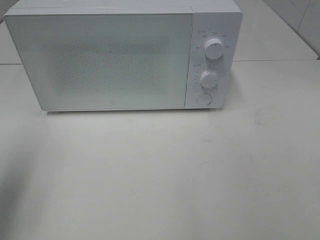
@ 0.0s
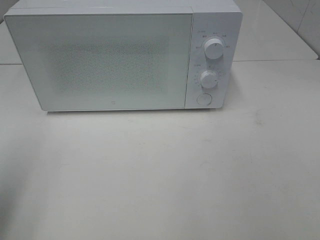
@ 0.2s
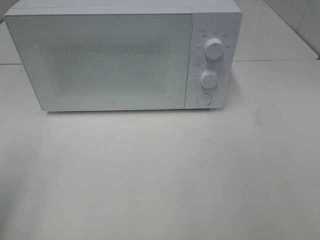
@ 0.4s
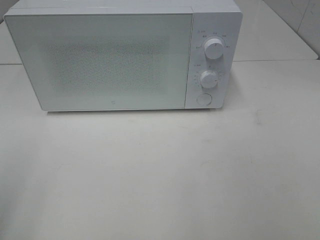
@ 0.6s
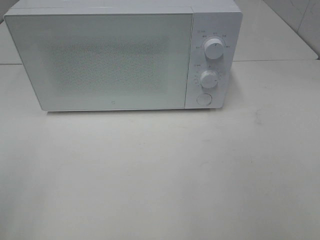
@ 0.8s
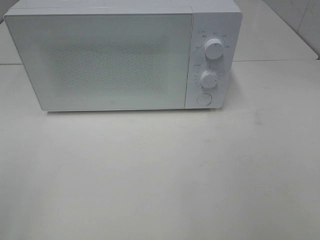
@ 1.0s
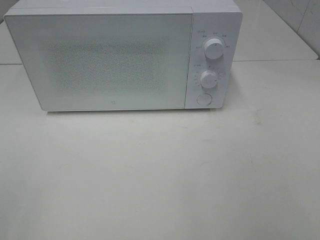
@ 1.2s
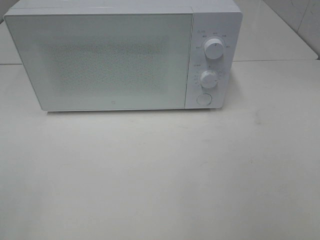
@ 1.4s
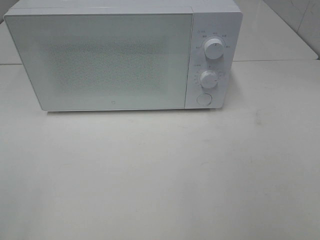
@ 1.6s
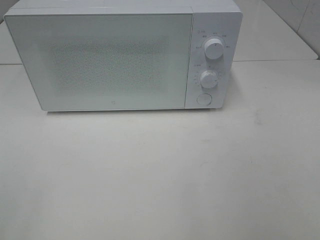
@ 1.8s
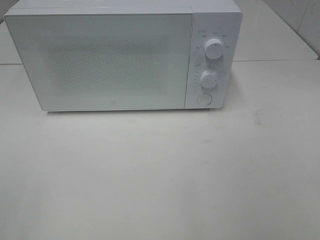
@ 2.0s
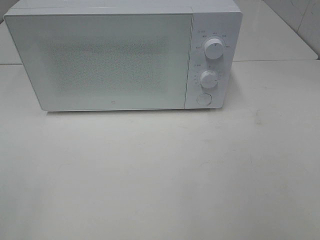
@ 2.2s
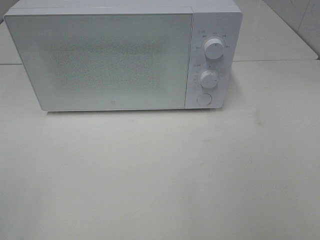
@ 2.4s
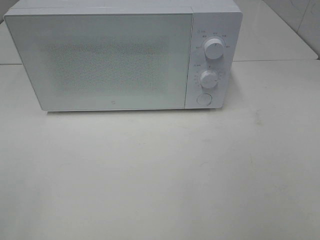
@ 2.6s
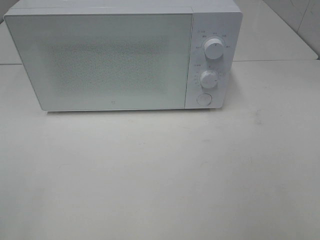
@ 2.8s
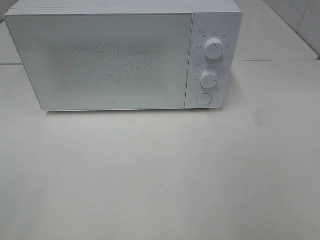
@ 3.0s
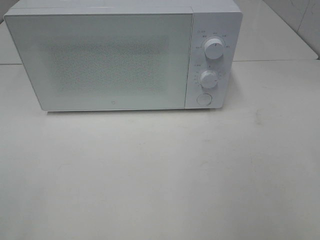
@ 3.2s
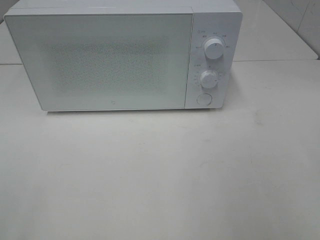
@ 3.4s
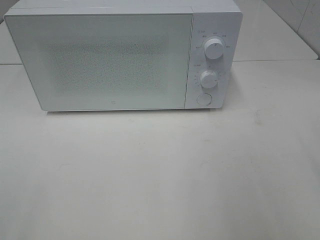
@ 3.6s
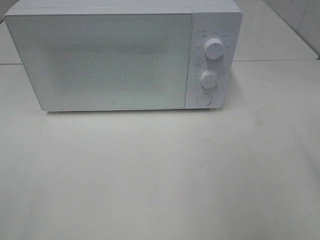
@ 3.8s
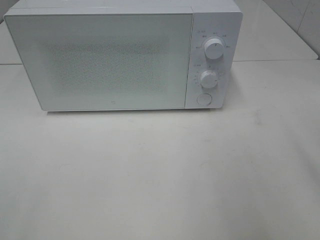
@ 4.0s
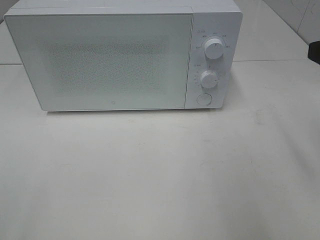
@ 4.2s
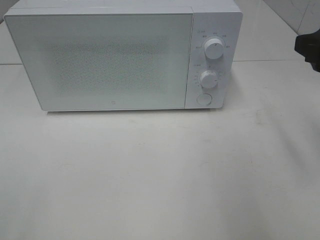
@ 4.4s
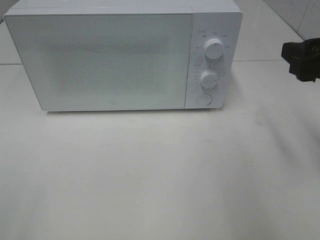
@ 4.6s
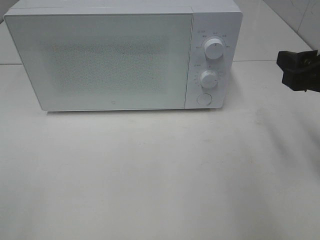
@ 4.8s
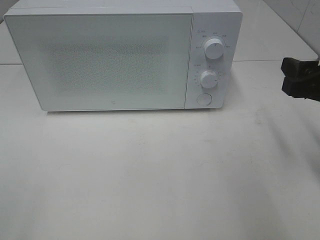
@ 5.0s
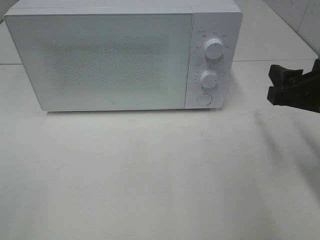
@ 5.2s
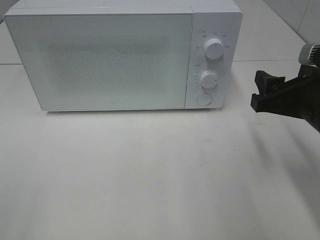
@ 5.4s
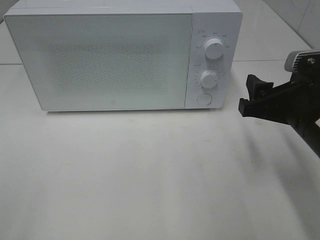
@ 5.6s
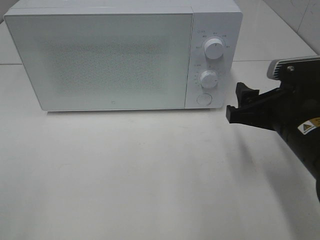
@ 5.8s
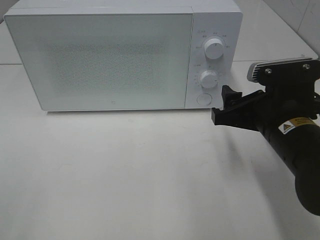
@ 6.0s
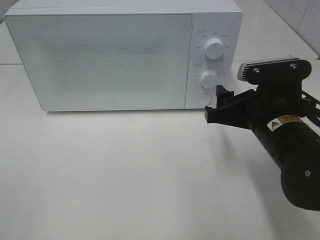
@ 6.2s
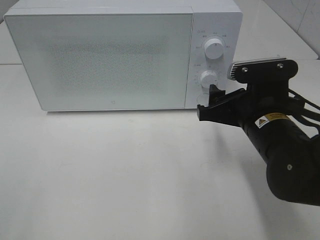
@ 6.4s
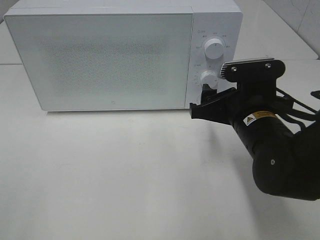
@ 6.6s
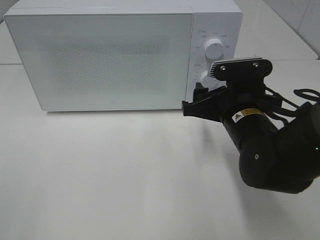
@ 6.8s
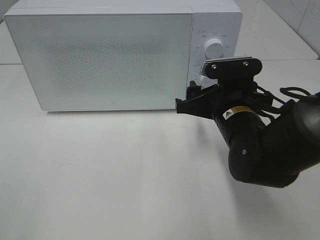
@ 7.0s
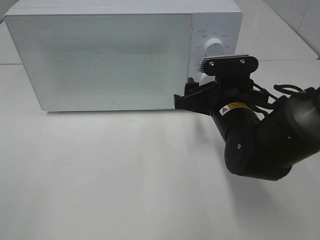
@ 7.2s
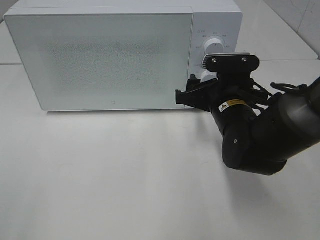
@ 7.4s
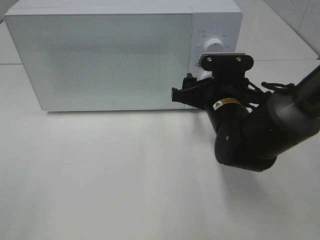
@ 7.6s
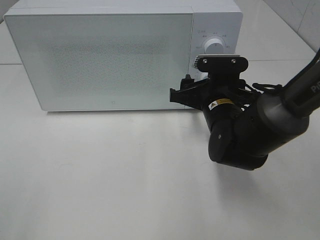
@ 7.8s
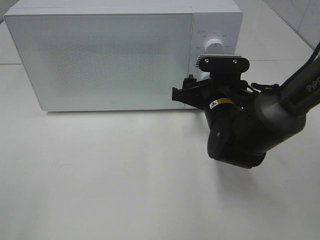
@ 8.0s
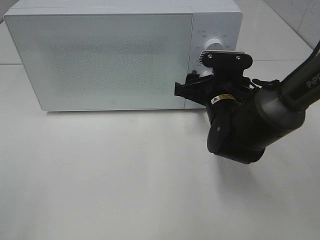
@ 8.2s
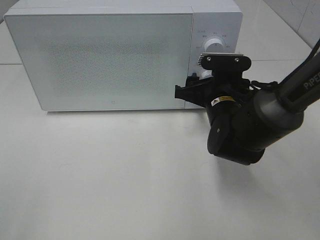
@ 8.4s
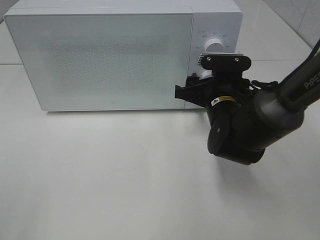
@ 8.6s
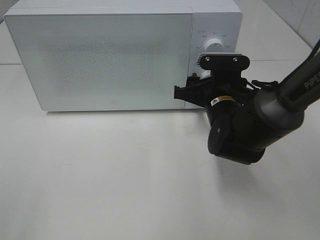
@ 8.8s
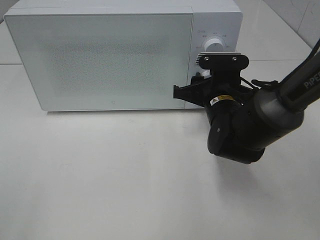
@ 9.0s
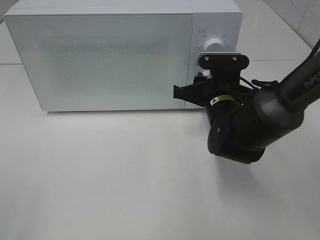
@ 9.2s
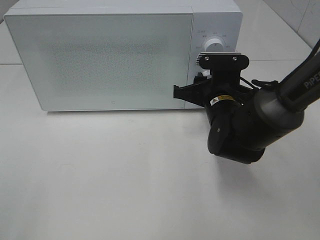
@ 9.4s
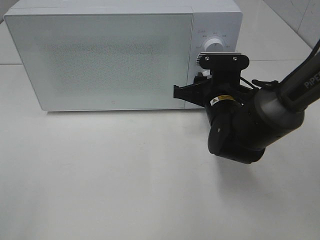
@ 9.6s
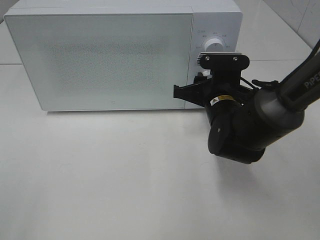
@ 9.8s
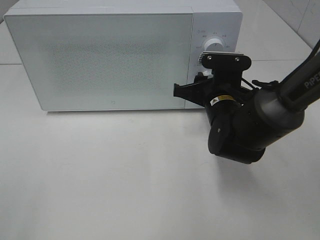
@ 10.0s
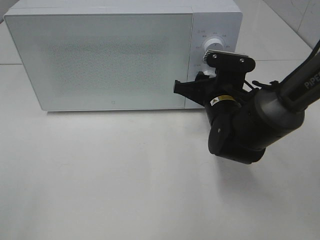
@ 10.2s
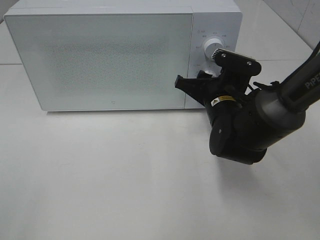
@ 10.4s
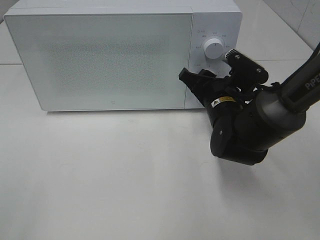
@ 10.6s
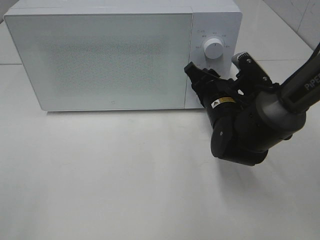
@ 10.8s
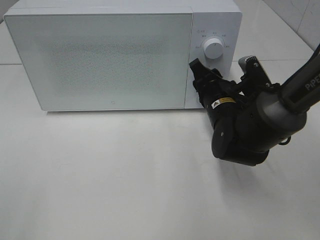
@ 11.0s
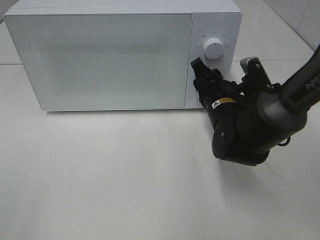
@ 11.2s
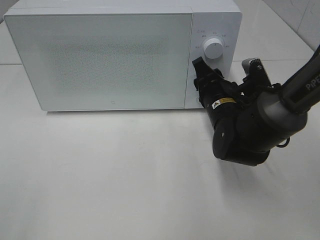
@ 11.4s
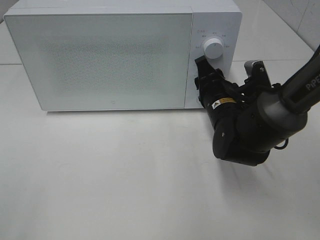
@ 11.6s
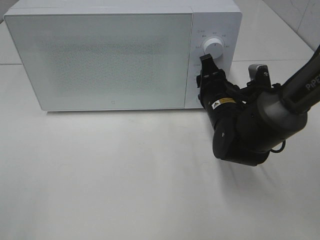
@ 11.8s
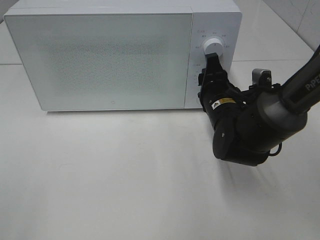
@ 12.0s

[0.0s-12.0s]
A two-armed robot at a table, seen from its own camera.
Task of the whole recording: Heat the burger.
0.0s to 1.6s: The left gripper heads backward, covering approximately 20 cm.
3.0s to 4.4s: The right gripper shifts approximately 15 cm forward.
4.4s to 6.0s: The right gripper heads downward and to the left, covering approximately 15 cm.
6.0s to 7.6s: The right gripper travels forward and to the left by approximately 10 cm.
7.6s to 10.4s: The grippers make only small movements.

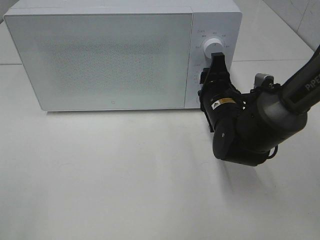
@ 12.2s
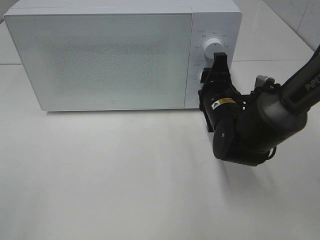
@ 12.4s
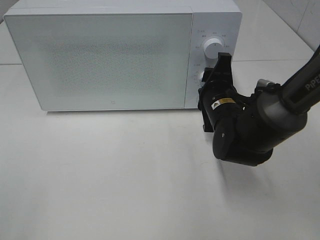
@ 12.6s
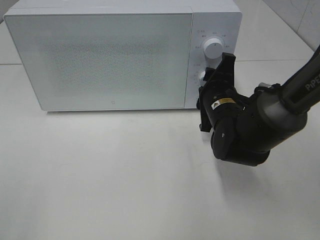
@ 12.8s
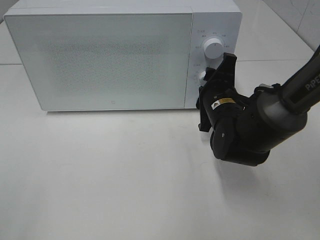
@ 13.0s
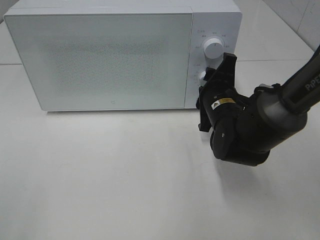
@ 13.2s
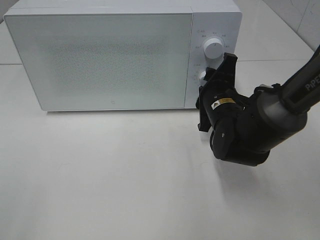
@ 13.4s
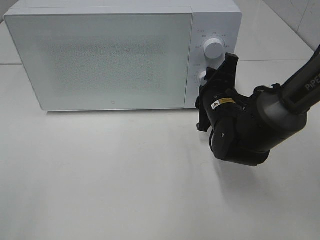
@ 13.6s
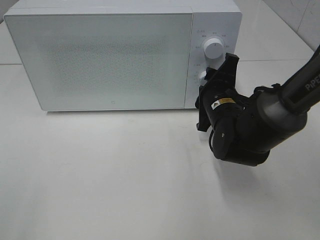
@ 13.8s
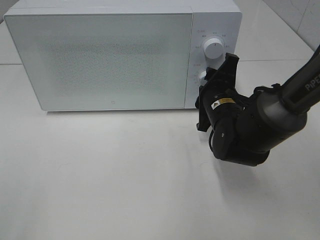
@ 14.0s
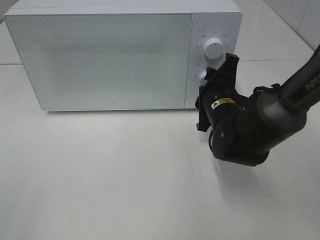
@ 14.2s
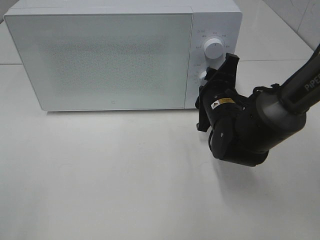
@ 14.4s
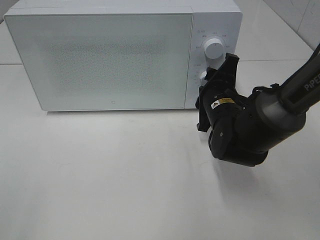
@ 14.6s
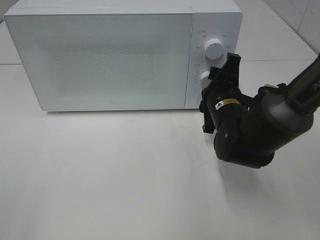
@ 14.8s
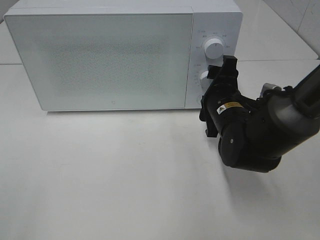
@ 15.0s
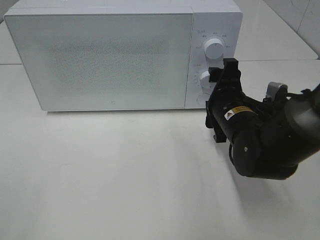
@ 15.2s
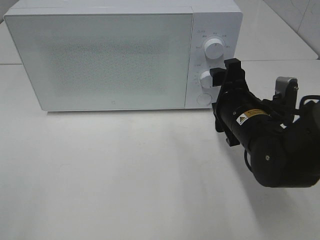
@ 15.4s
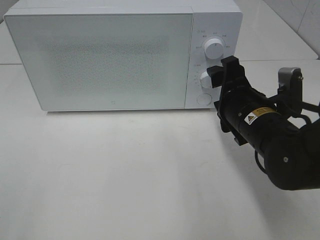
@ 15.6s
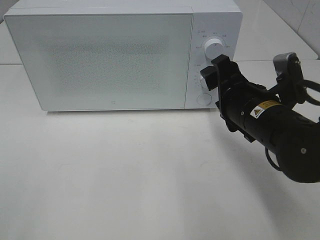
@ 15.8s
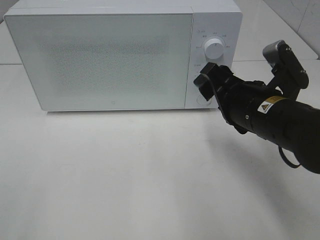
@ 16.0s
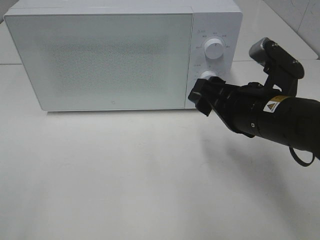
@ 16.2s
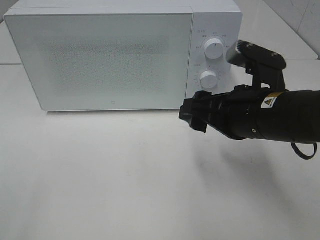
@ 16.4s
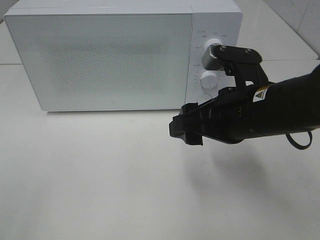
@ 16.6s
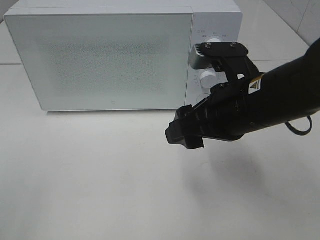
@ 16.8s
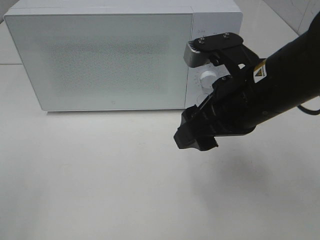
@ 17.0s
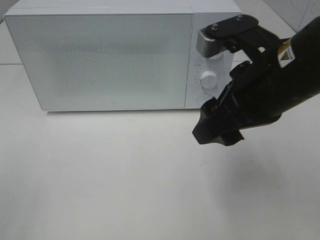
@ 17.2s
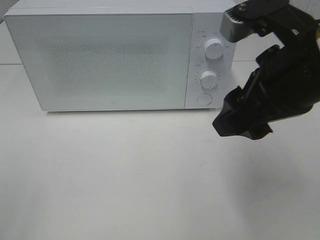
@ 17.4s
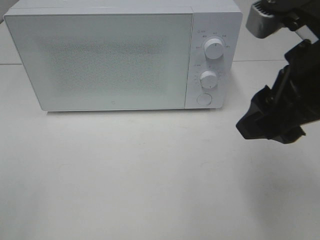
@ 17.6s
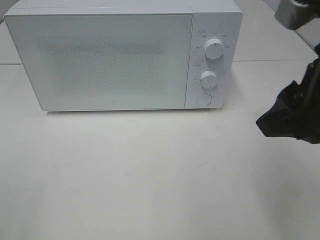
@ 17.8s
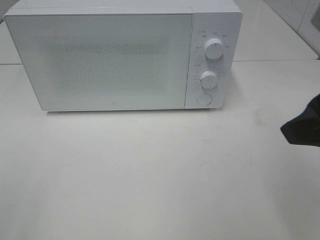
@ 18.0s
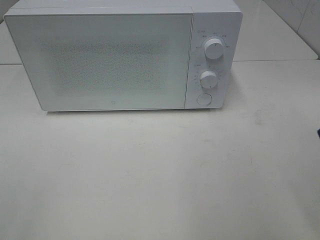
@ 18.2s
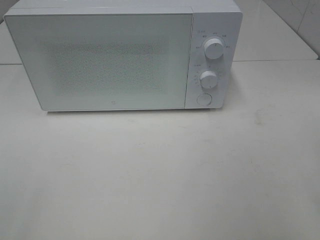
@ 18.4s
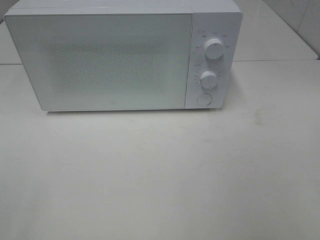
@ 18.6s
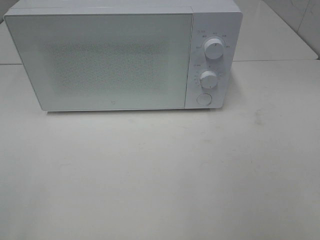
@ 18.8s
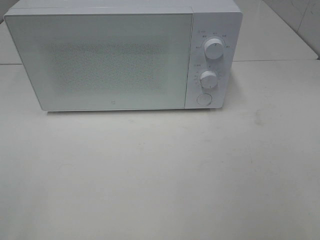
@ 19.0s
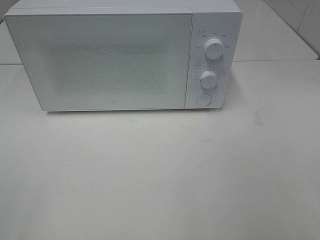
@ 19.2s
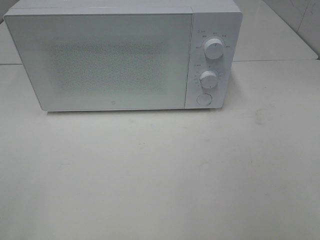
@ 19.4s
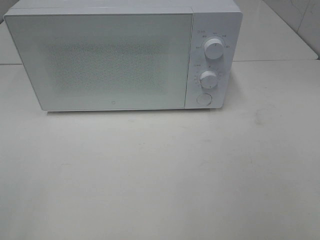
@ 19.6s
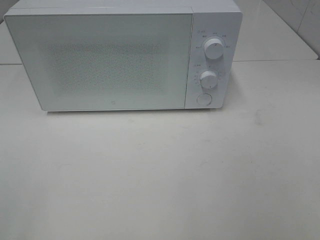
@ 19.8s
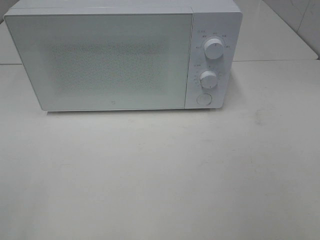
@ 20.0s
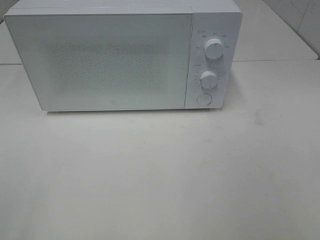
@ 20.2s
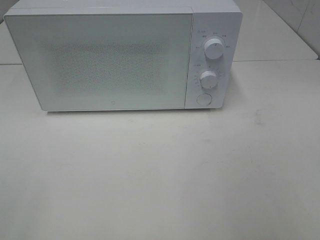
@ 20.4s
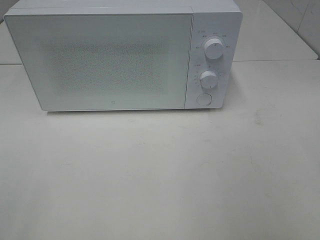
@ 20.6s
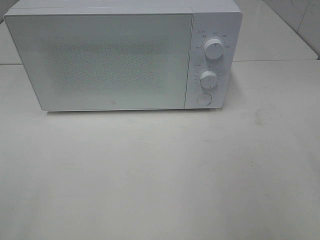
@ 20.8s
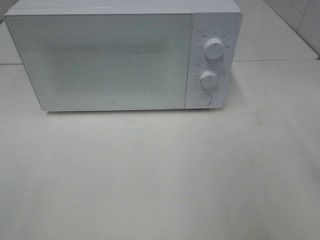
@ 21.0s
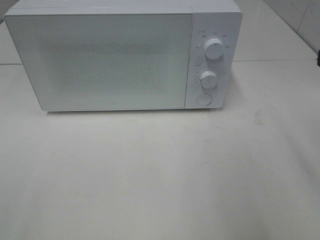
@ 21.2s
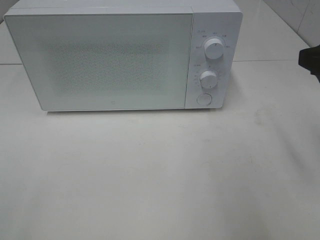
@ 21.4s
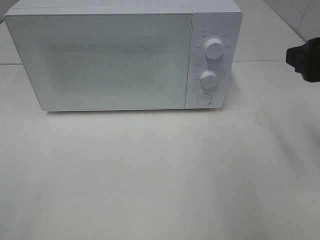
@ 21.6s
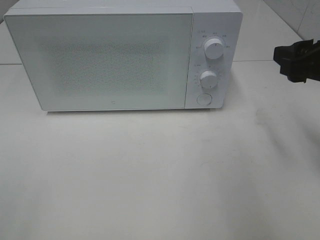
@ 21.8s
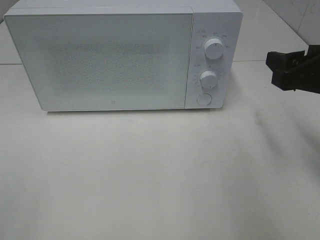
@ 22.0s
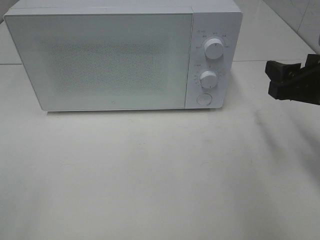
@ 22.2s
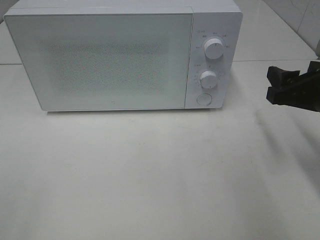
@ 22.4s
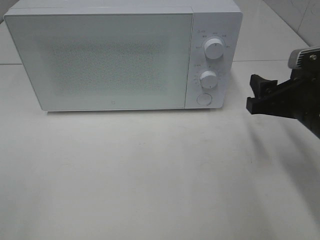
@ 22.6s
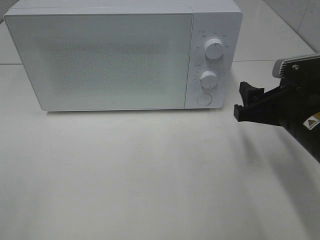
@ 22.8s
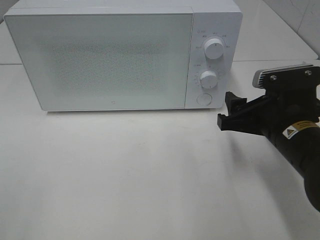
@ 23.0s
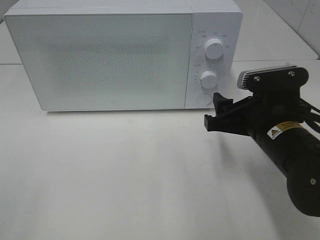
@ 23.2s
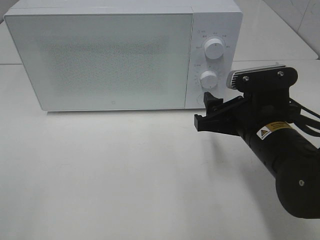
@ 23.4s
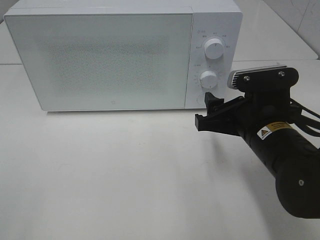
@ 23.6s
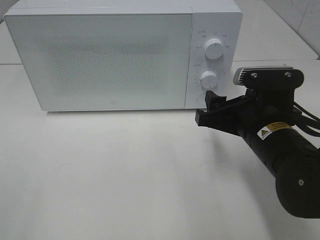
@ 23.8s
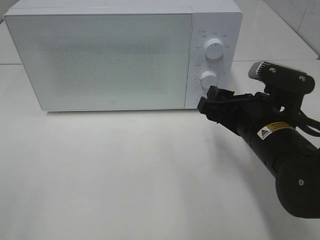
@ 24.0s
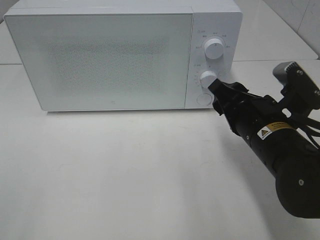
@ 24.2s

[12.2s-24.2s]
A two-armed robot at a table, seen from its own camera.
Task of the whole recording: Heat the burger.
Step, 12.2s to 15.2s: Right hand: twist timer button.
12.2s to 15.2s: The grippers move only a little.
15.2s to 16.6s: The right gripper travels upward and backward by approximately 10 cm.
16.6s to 18.2s: The right gripper travels to the right, upward and backward by some 20 cm.
21.2s to 22.6s: The right gripper heads downward and forward, covering some 15 cm.
22.6s to 24.2s: The right gripper heads to the left, covering some 10 cm.
